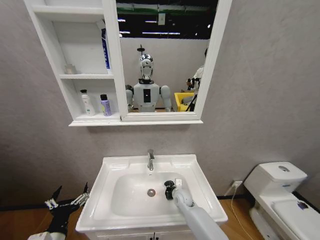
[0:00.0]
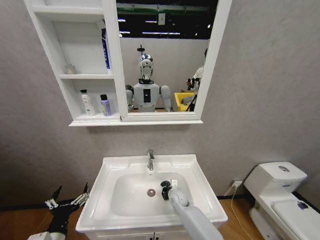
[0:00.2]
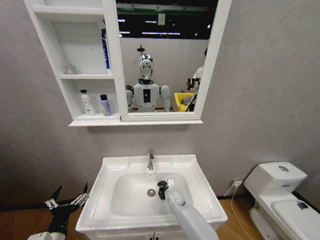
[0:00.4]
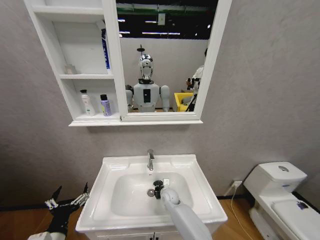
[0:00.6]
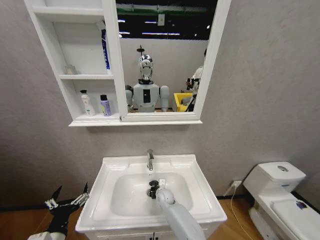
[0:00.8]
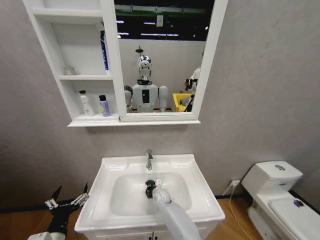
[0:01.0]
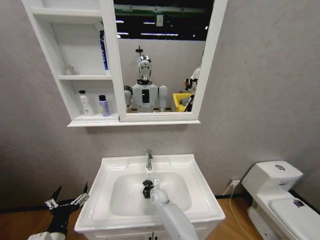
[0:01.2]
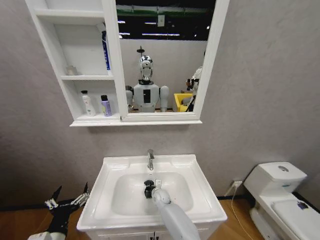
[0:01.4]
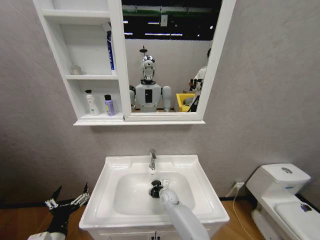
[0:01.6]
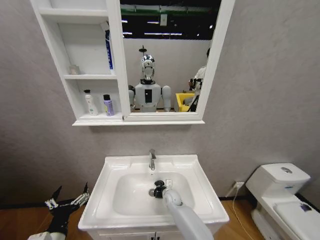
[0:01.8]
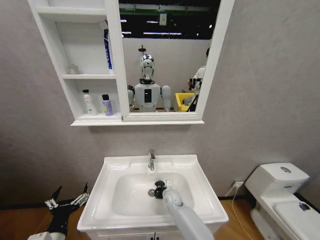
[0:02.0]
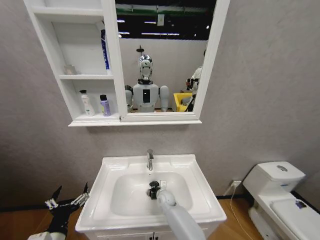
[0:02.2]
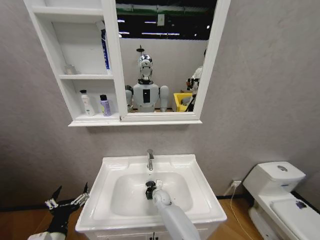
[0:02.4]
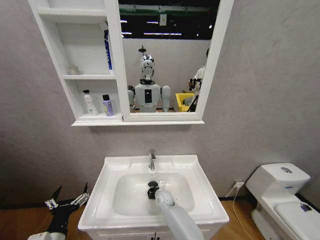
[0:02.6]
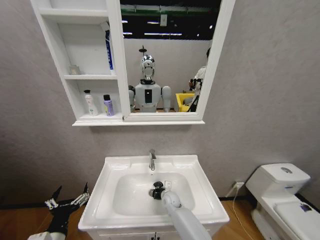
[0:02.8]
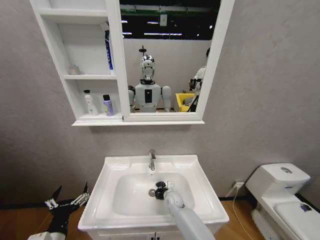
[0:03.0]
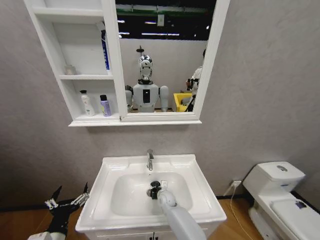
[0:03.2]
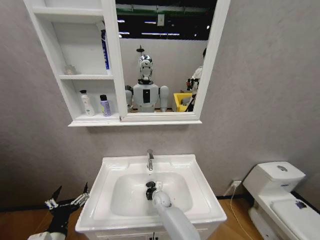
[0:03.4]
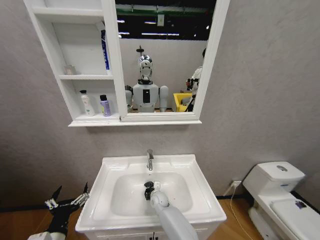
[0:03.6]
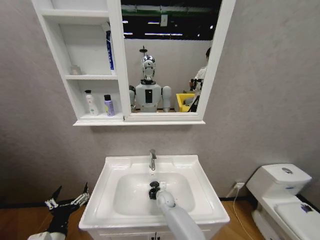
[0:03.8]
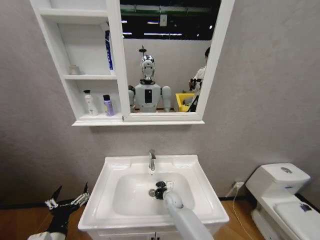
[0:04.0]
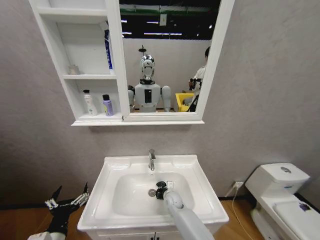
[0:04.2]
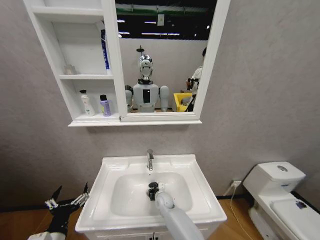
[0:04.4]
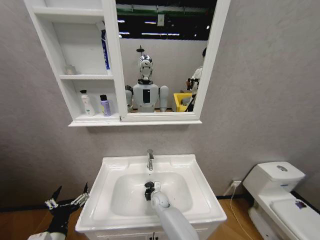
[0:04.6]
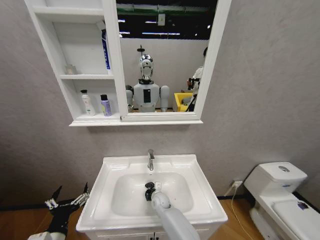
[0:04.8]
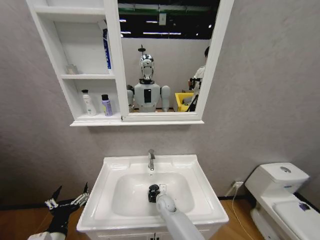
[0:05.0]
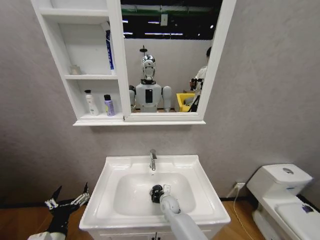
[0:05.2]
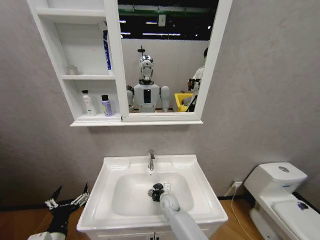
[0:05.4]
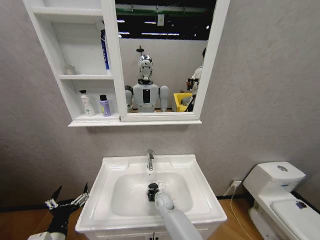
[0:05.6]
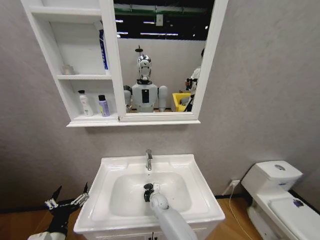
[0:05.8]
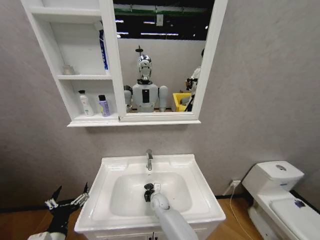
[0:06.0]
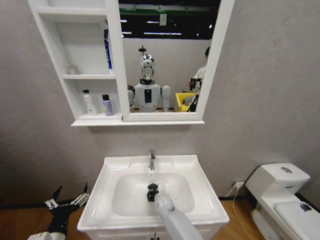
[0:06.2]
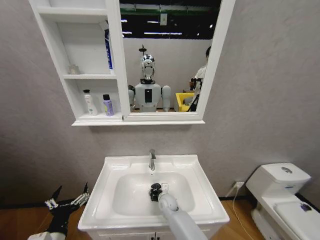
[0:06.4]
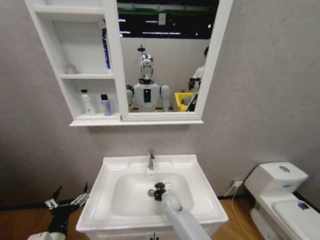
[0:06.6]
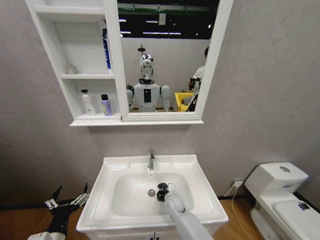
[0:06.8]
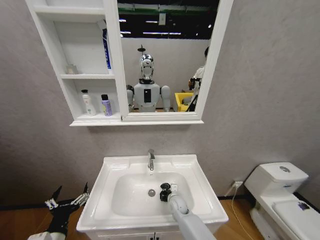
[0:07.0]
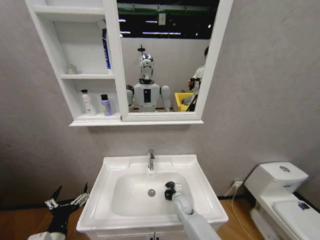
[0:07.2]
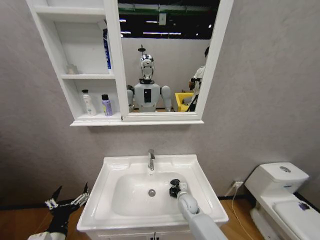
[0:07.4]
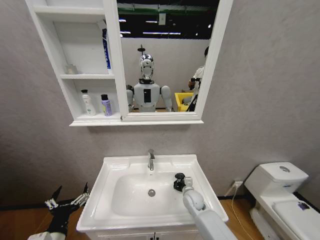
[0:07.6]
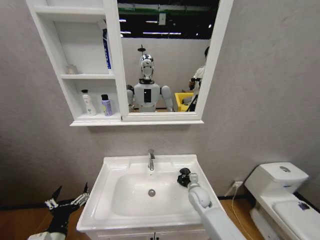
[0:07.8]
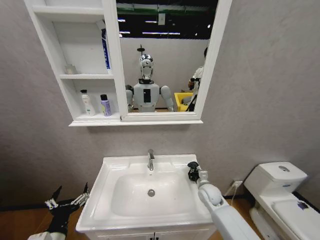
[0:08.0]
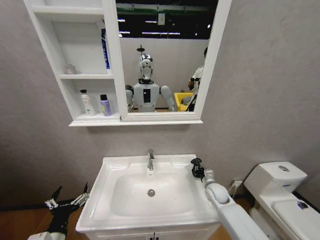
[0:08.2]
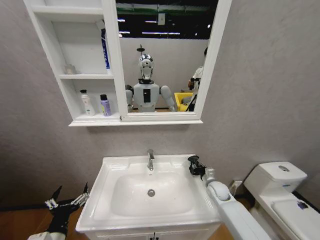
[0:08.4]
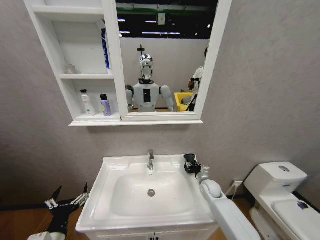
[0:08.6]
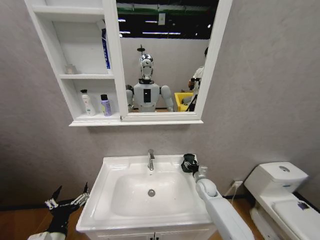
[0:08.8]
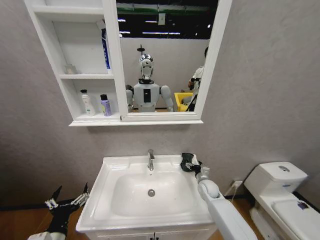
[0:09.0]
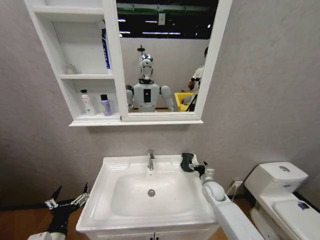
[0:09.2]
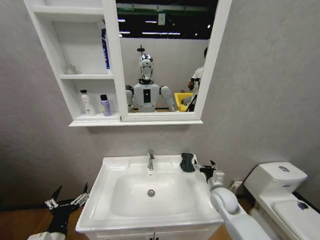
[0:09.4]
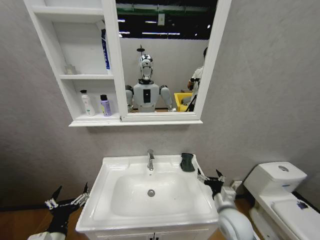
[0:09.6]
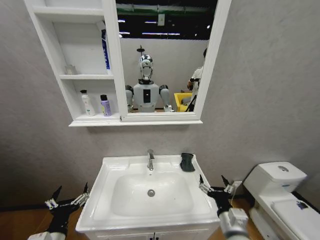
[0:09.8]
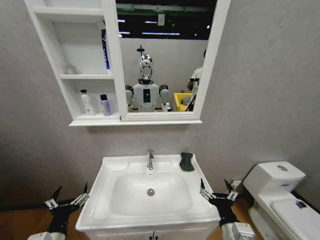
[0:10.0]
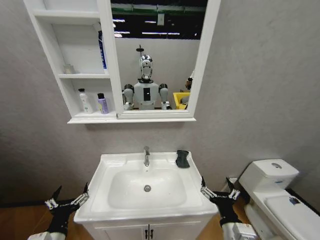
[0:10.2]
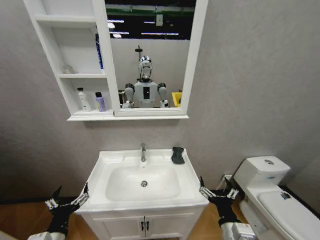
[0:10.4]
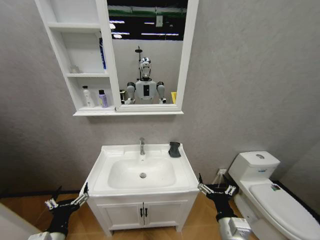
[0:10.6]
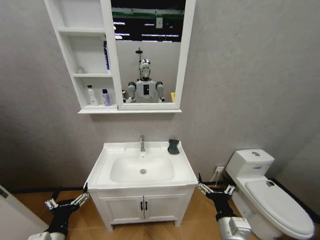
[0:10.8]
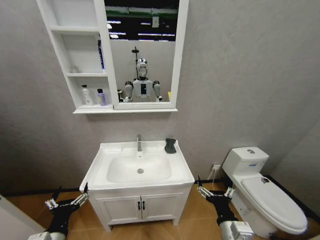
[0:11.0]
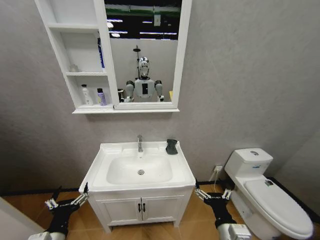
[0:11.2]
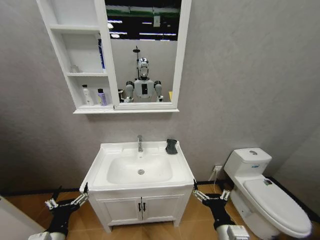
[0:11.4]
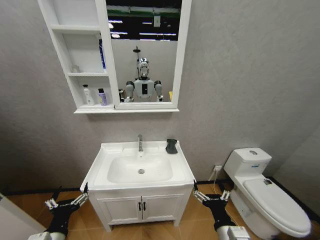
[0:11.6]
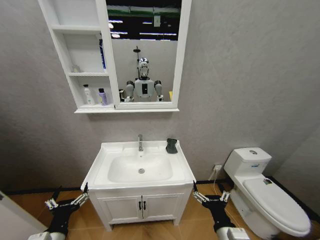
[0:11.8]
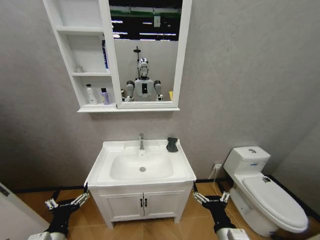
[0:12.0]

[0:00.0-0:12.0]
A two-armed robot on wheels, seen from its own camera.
Task of the whole recording: Move facial cleanser and shampoo from washbasin to cabinet, then wipe washbasin with towel.
0:00.0 to 0:01.6: The right gripper goes some 5 cm to the left.
0:01.6 to 0:03.0: There are only small adjustments of the grippers.
0:03.0 to 0:04.4: The right gripper moves left and right over approximately 10 cm, changing direction 2 times.
0:04.4 to 0:06.0: The grippers make only small movements.
0:06.0 to 0:07.6: The right gripper is displaced to the right by about 15 cm.
0:07.6 to 0:09.0: The right gripper goes some 10 cm to the right, and opens up.
0:09.0 to 0:10.4: The right gripper shifts approximately 30 cm backward.

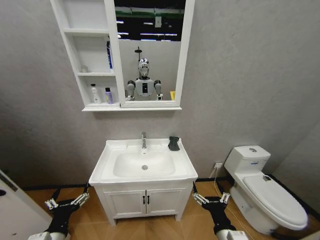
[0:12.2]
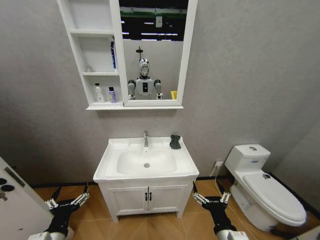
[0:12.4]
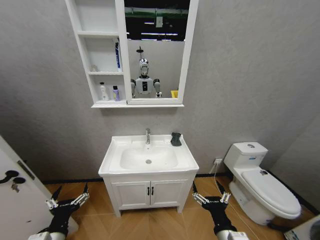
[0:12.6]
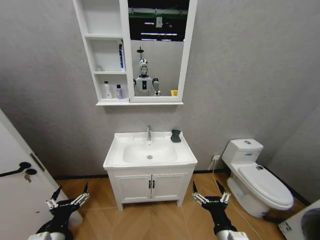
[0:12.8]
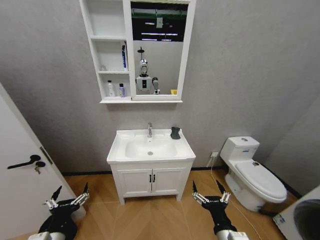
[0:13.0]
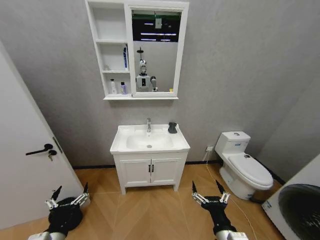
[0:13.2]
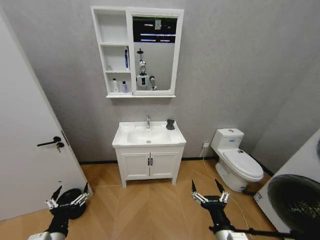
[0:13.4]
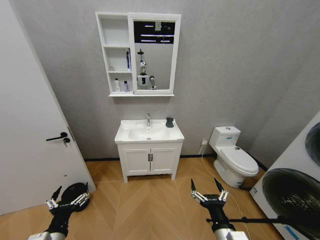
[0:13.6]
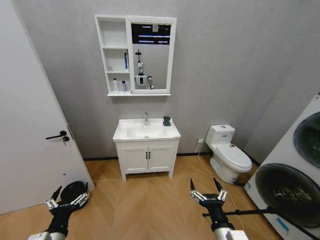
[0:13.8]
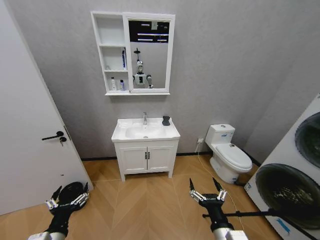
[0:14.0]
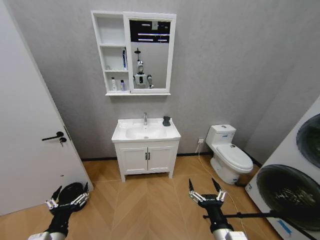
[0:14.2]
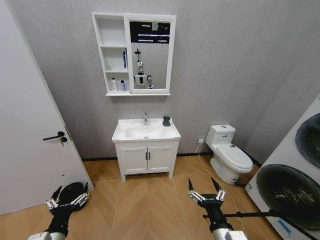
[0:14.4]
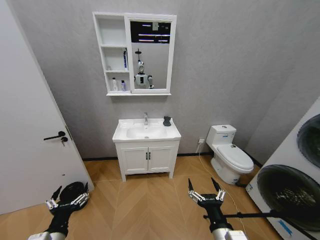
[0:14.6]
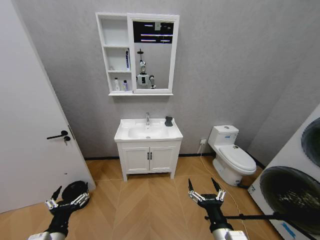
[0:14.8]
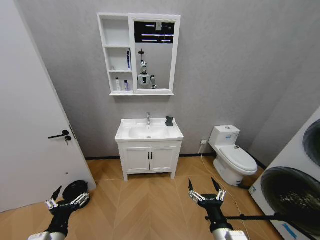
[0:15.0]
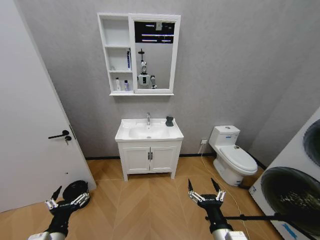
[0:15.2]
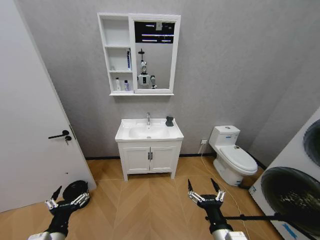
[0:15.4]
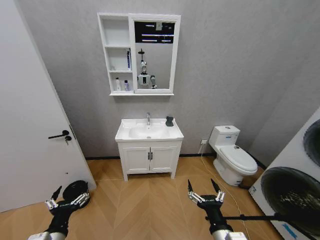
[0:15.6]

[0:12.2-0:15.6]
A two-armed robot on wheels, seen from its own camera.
Task of the whole recording: Move facial cleanser and shampoo from washbasin to cabinet, then wipe washbasin with towel.
0:13.8 to 0:15.6: Both grippers stay about where they are.
